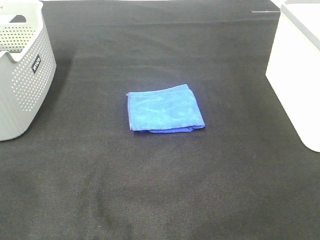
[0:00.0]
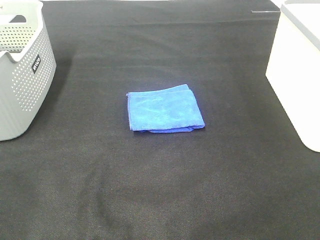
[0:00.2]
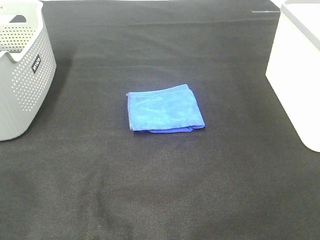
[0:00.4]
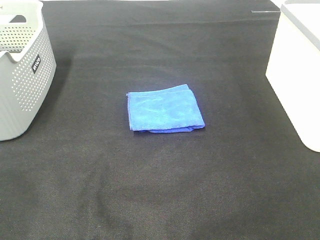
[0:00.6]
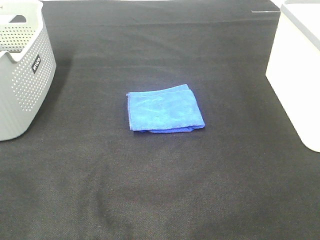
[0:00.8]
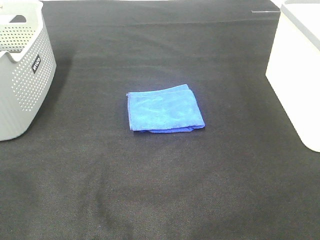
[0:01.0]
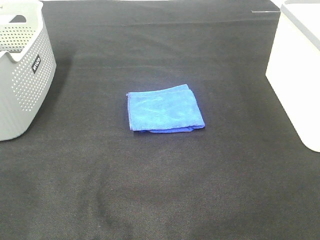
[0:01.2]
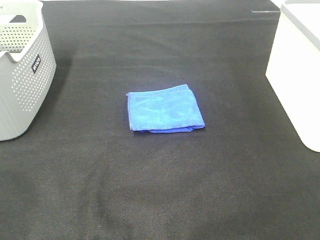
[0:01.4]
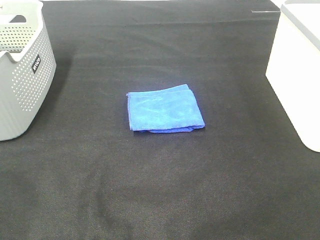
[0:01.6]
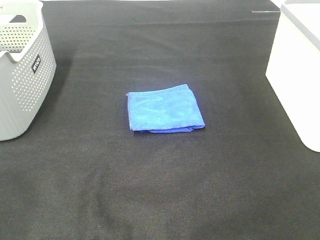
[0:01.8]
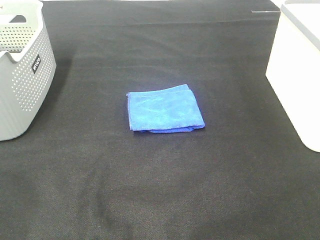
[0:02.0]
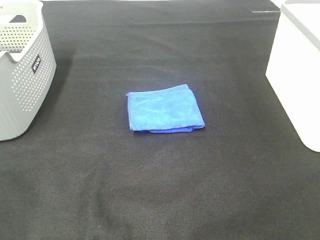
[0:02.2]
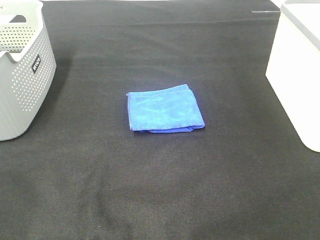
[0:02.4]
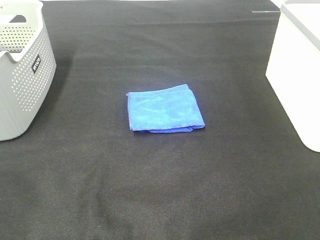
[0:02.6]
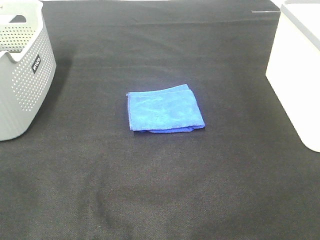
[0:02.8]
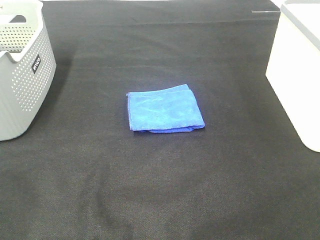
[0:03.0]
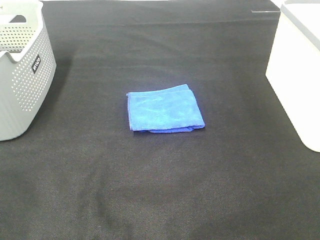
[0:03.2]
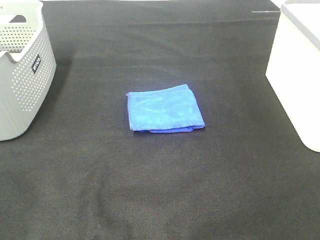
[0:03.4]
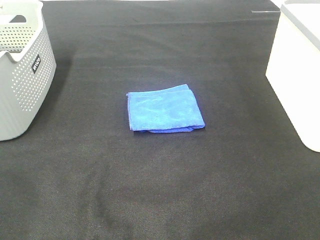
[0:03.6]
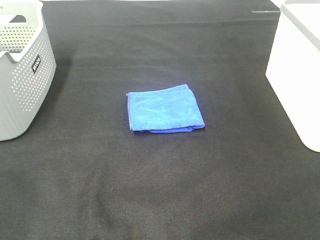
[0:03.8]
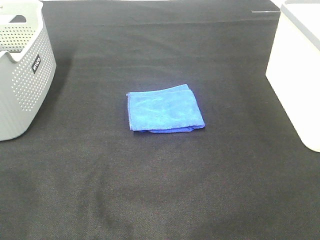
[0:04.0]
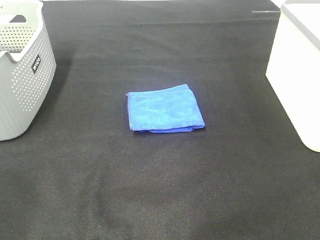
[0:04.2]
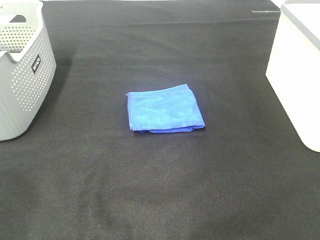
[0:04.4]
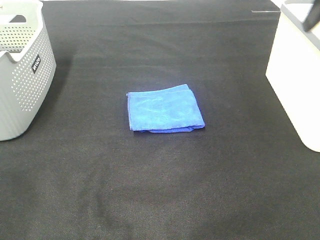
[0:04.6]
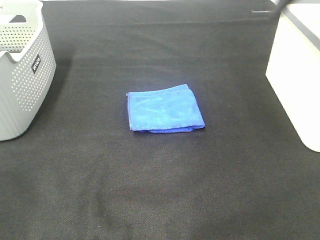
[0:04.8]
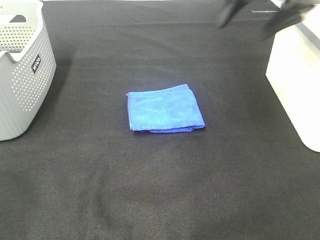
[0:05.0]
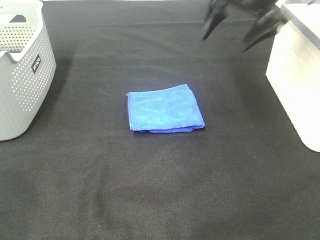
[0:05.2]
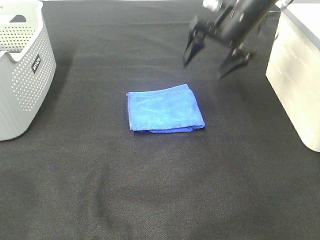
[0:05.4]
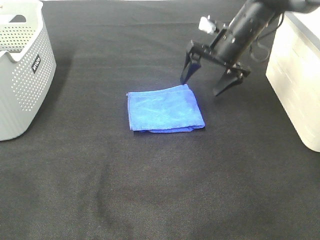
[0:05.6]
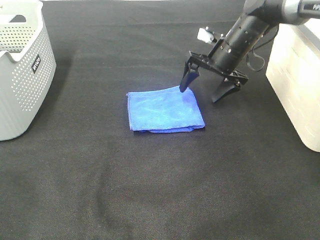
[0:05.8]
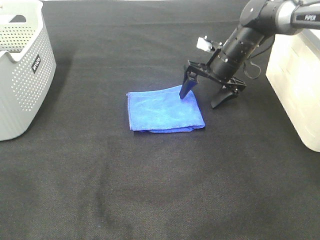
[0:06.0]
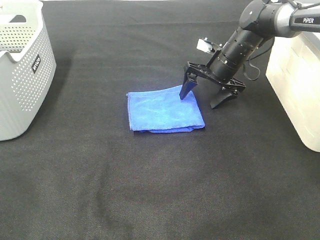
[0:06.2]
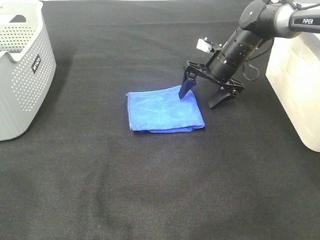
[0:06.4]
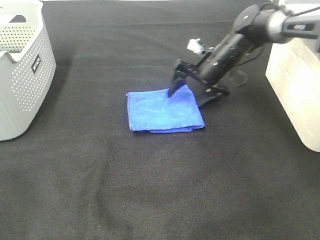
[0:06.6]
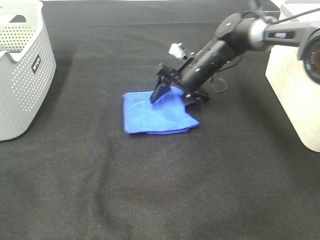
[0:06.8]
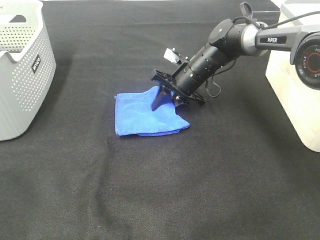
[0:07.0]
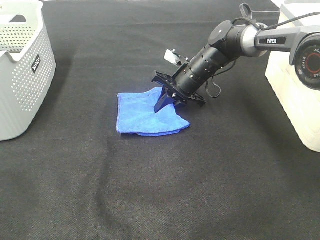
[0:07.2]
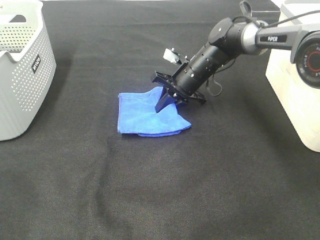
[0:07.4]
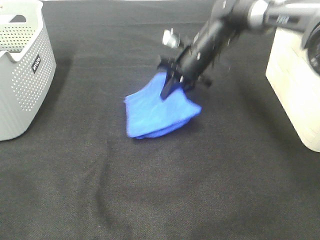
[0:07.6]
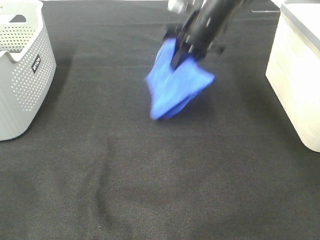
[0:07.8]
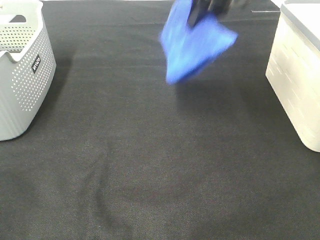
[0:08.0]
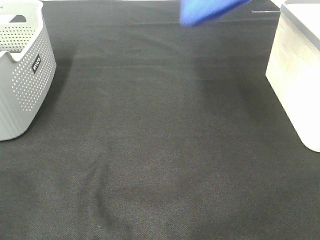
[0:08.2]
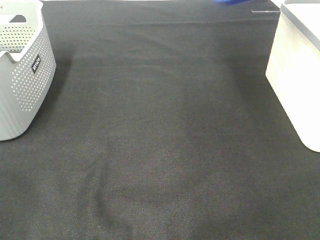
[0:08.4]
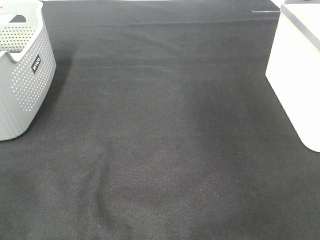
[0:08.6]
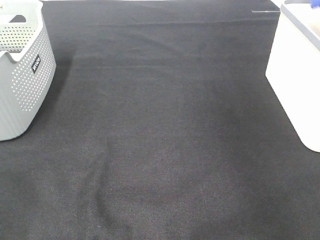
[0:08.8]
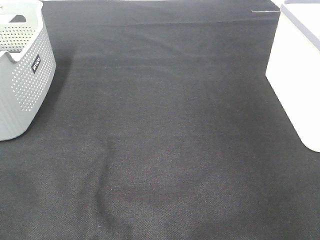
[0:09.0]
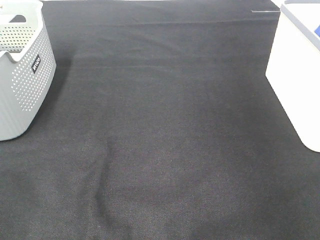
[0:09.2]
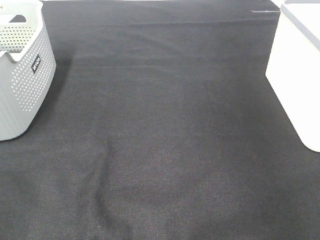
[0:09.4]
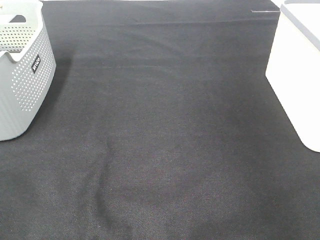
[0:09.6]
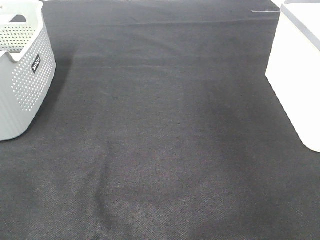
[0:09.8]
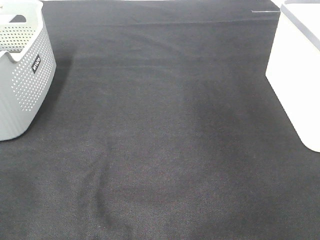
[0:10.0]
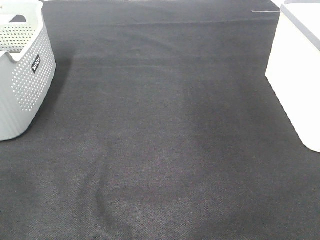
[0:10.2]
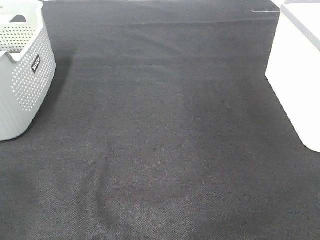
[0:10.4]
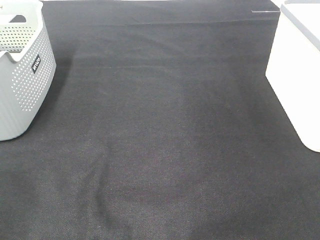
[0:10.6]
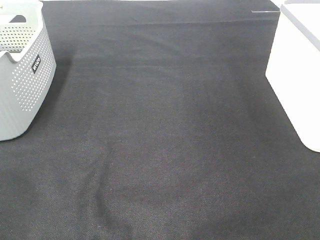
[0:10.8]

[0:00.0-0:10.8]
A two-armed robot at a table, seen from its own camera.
Step, 0:00.0 to 0:07.2: Right hand: grab the folded blue towel.
Step, 0:07.4 to 0:09.2: Right hand: place the blue towel in right basket.
0:00.0 to 0:03.0: The two grippers keep their place.
0:04.6 to 0:06.2: The right gripper goes approximately 35 cm downward, forward and to the left.
0:06.2 to 0:07.8: The right gripper moves upward and to the left, roughly 15 cm, and closes.
0:07.8 to 0:09.2: The right gripper goes roughly 30 cm to the right, and opens its fingers.

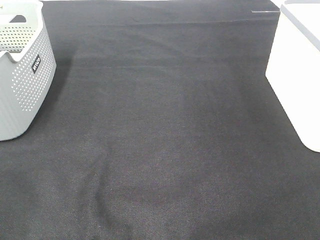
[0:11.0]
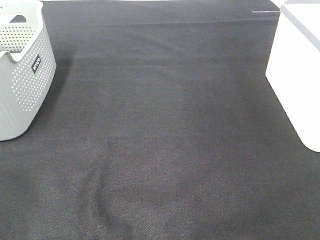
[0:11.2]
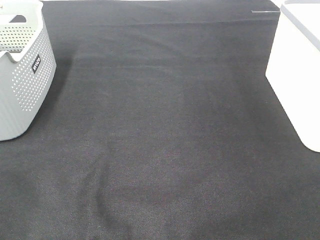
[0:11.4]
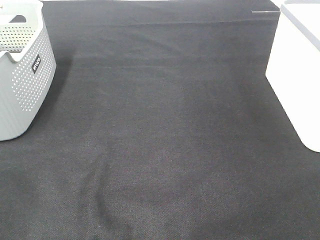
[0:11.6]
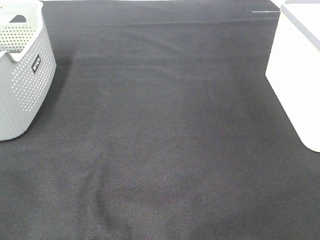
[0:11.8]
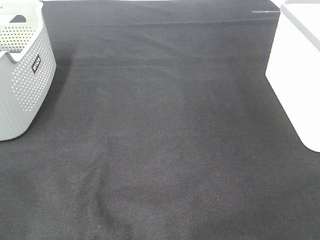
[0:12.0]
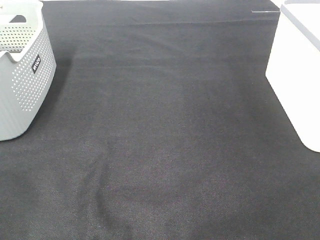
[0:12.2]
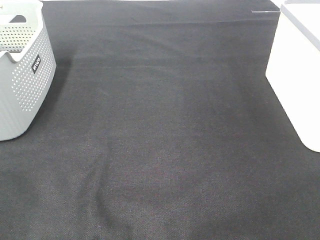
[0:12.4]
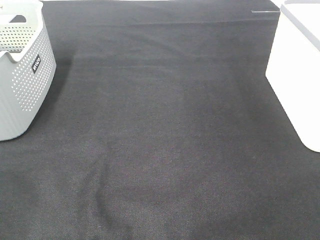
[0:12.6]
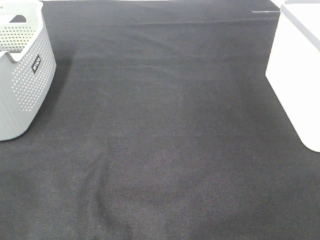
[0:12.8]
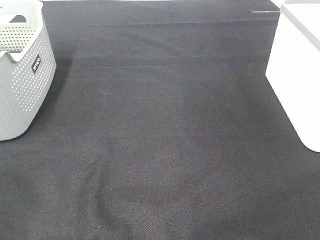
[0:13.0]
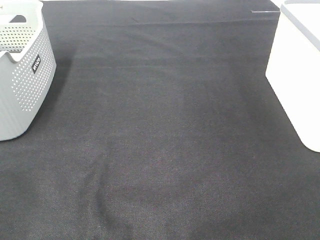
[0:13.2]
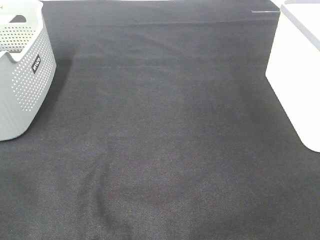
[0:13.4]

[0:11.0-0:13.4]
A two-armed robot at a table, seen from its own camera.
0:12.2 to 0:13.4: The two grippers keep their place.

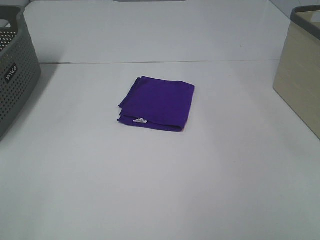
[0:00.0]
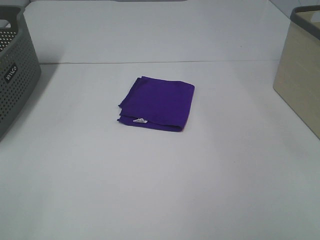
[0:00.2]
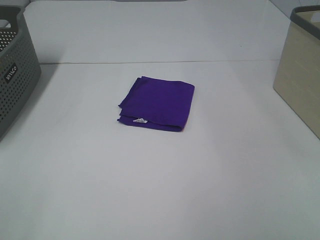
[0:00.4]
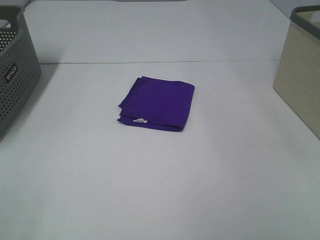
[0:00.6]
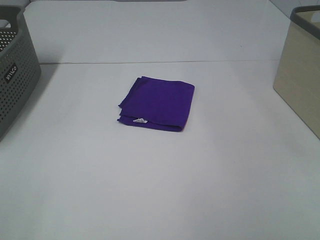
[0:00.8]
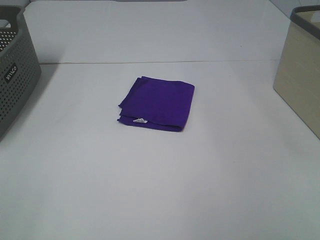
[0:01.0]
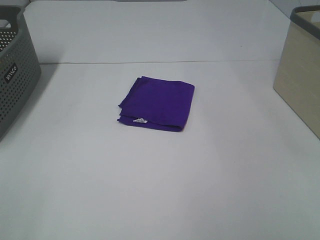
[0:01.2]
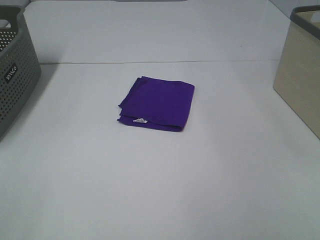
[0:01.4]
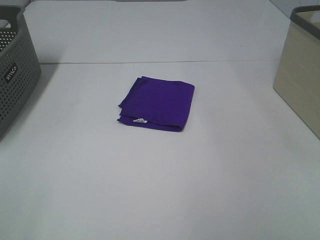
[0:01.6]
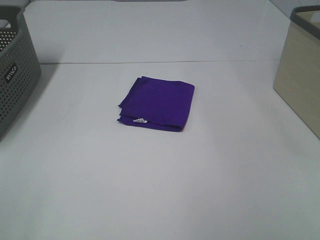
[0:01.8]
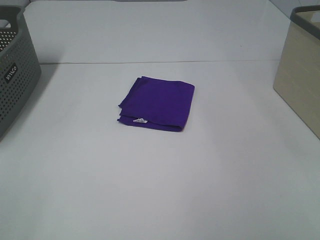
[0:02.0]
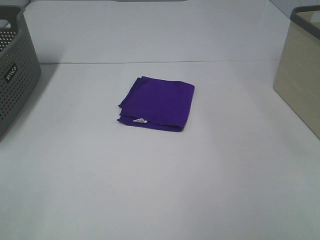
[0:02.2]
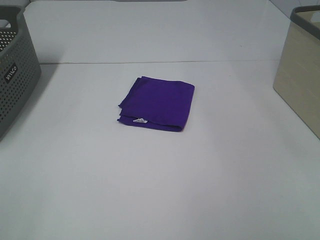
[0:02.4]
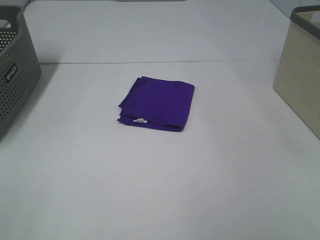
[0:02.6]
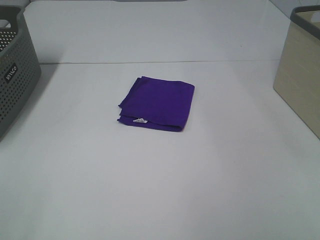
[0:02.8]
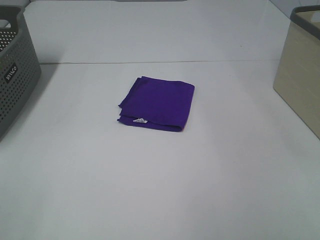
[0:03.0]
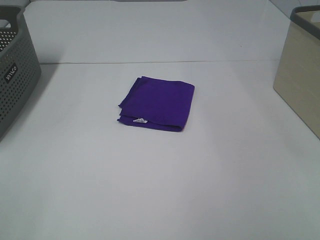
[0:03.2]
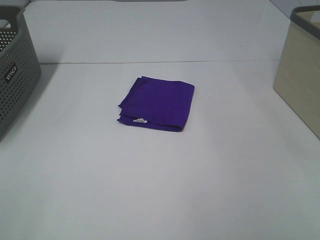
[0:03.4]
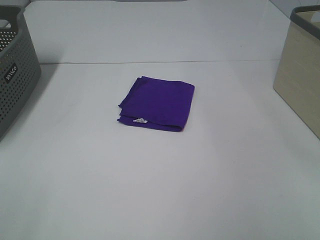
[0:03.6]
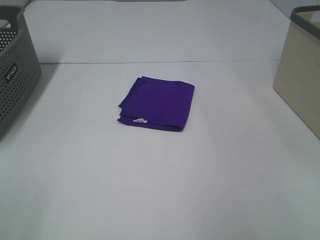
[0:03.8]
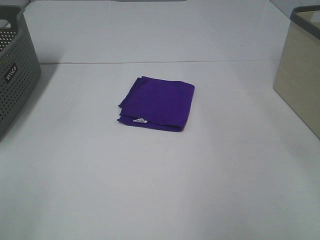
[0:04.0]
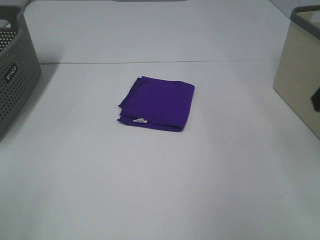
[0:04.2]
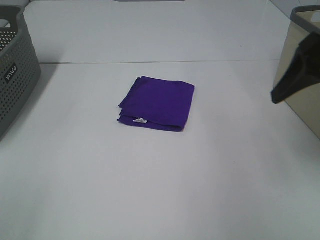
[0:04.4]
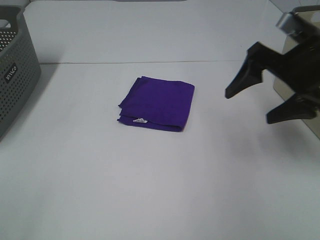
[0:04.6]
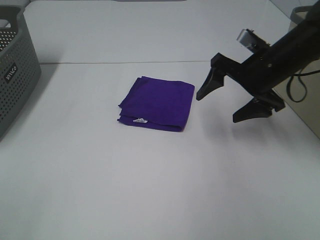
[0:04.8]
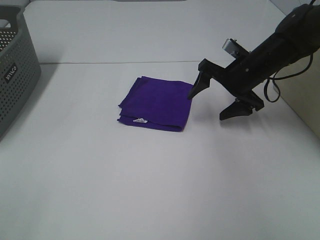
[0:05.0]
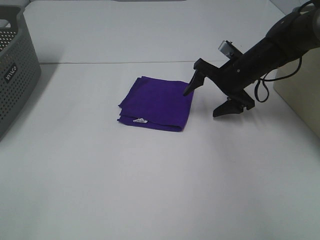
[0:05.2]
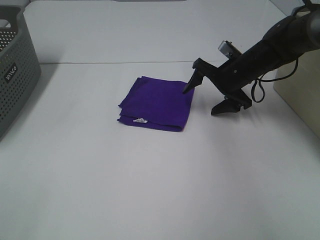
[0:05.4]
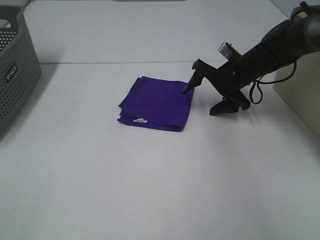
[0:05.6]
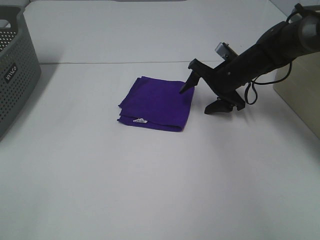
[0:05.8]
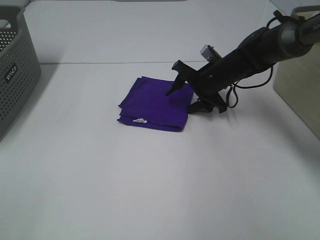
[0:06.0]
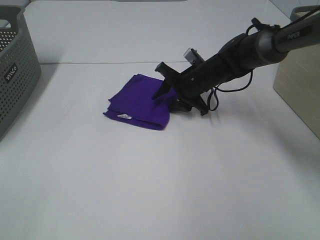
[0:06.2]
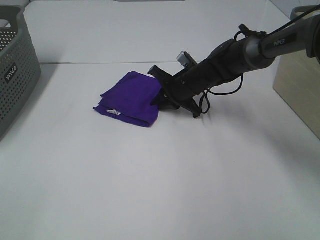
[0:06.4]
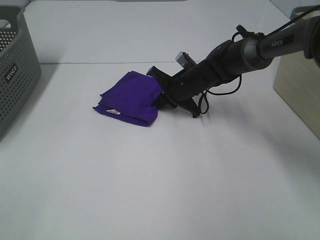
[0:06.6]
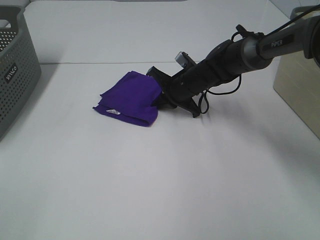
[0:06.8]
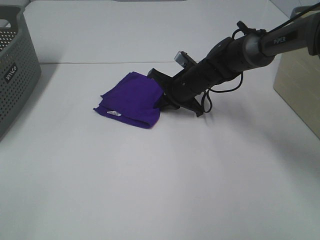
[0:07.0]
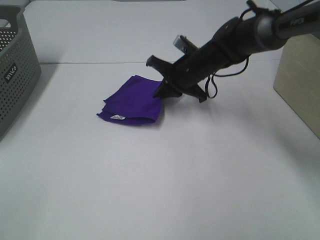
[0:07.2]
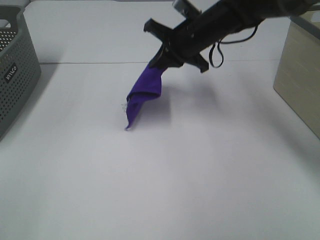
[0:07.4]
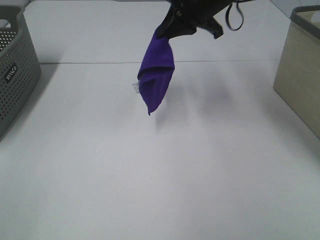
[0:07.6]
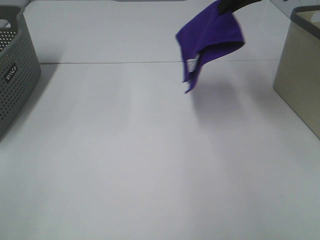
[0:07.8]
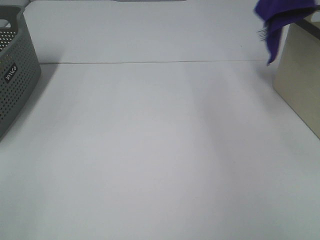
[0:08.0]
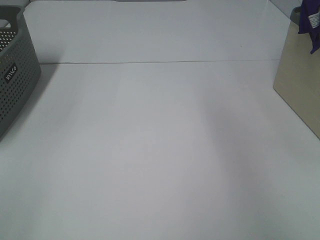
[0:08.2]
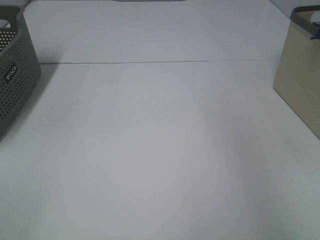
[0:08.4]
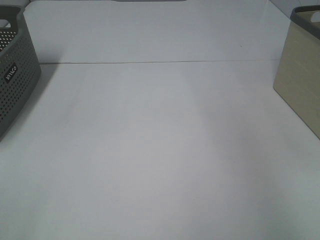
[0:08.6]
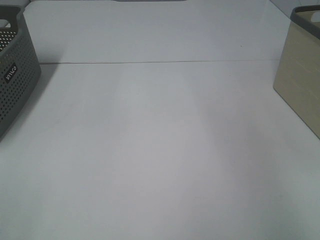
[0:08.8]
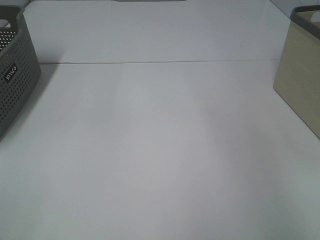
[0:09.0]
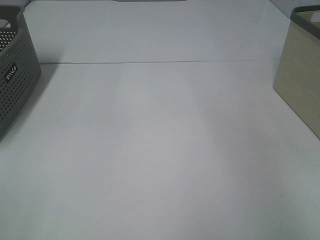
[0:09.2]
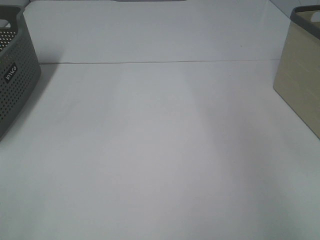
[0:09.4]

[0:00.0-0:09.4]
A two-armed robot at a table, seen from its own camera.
Step, 0:00.0 to 0:06.6: Right hand: grab the folded purple towel.
Step, 0:06.8 to 0:09.0: Right hand: place the purple towel in right basket.
0:00.0 to 0:03.2: The two grippers keep their place.
0:03.2 to 0:04.8: The right gripper moves forward, some 35 cm.
0:04.8 to 0:06.2: The right gripper travels downward, to the left and forward by some 15 cm, and closes up.
0:06.2 to 0:07.8: The right gripper goes some 30 cm upward, and closes.
0:07.8 to 0:09.4: The right gripper shifts roughly 20 cm to the right, and opens.
